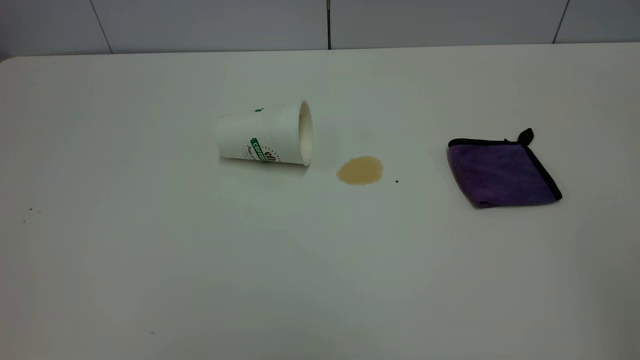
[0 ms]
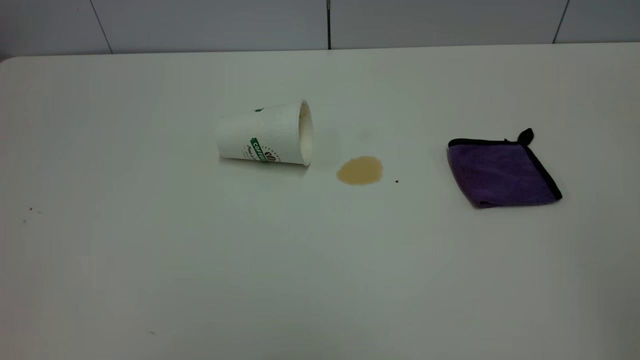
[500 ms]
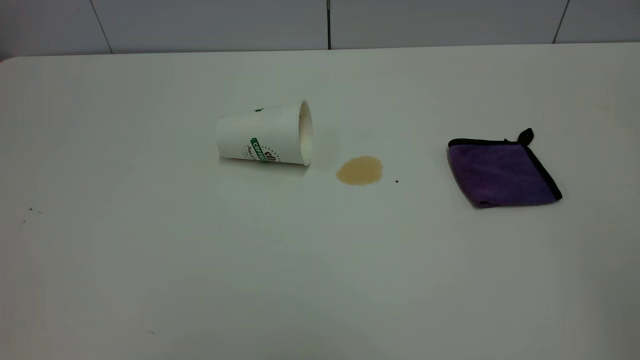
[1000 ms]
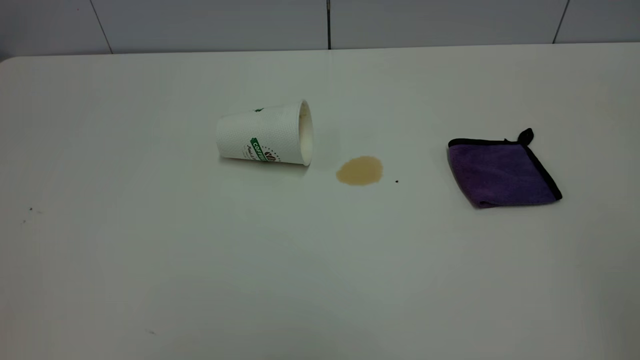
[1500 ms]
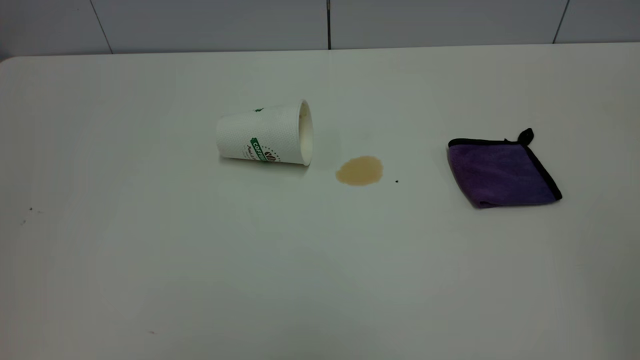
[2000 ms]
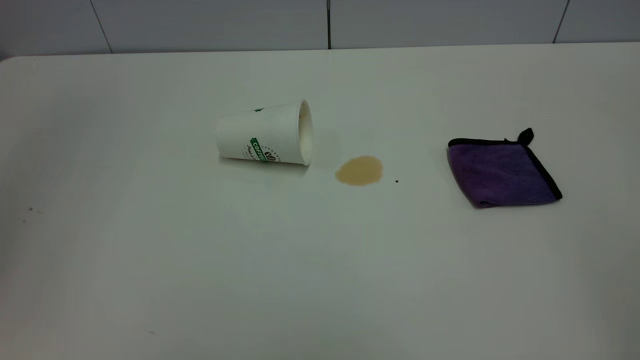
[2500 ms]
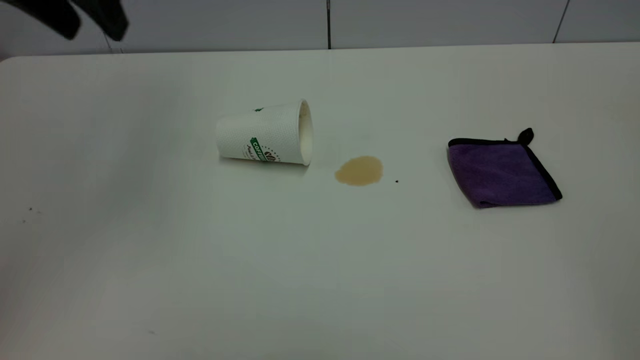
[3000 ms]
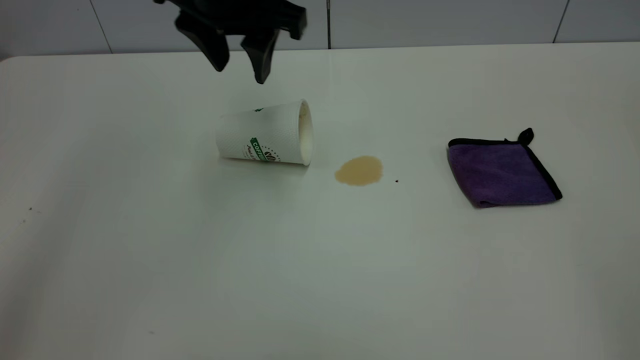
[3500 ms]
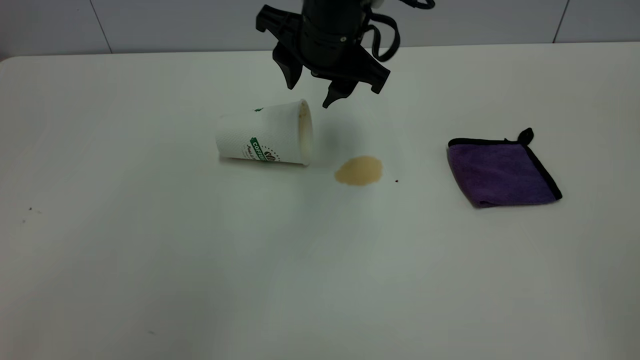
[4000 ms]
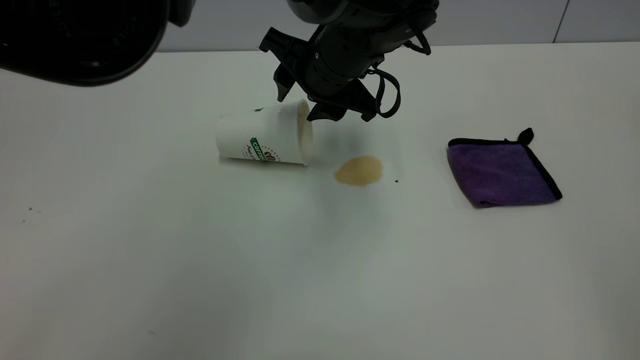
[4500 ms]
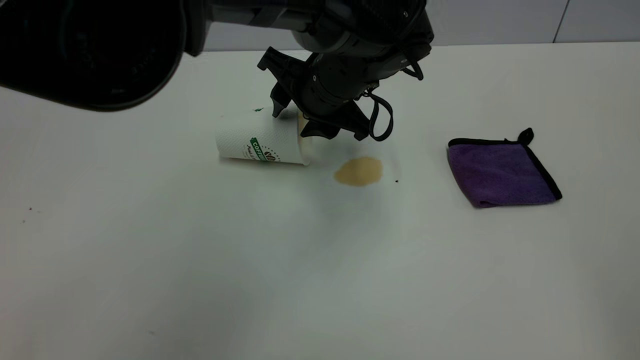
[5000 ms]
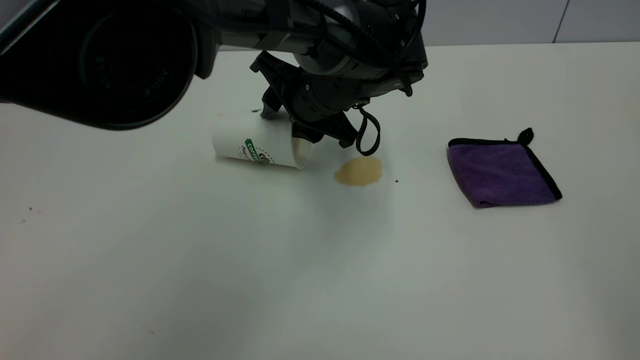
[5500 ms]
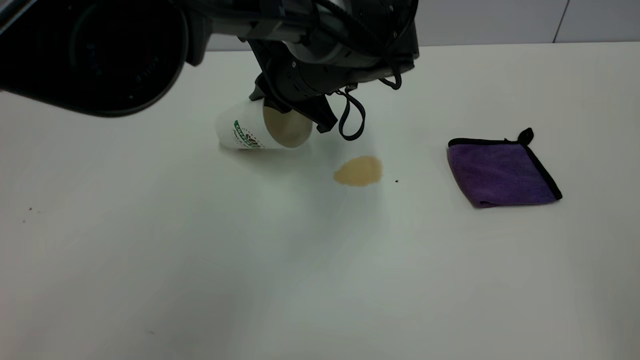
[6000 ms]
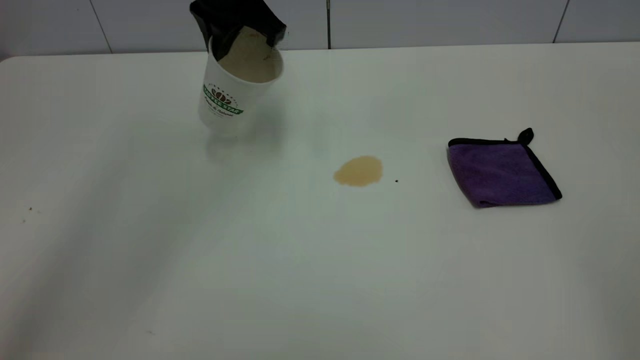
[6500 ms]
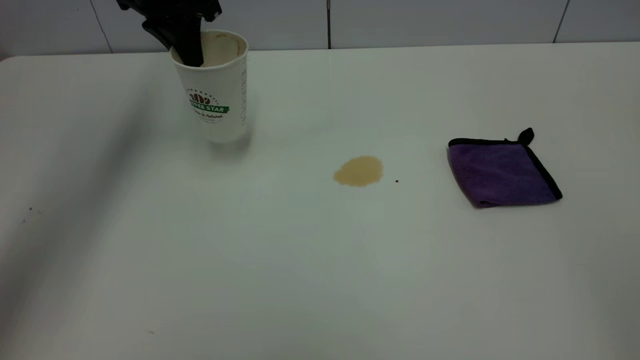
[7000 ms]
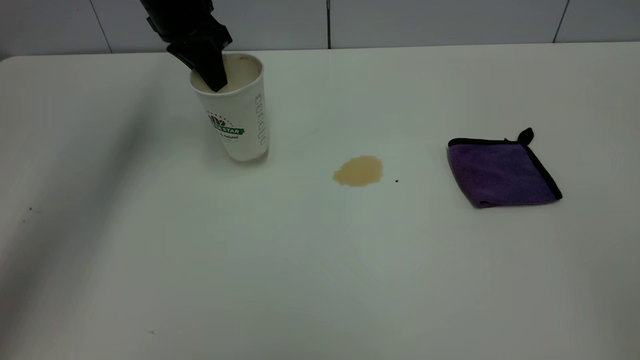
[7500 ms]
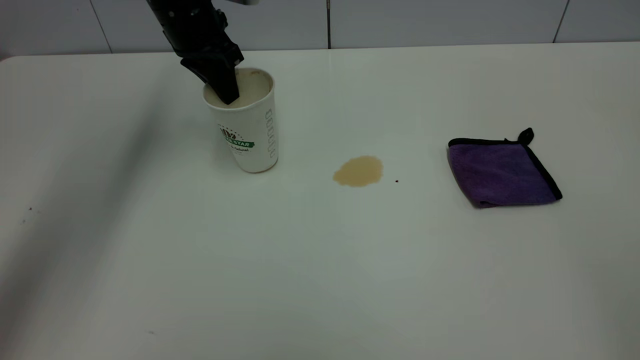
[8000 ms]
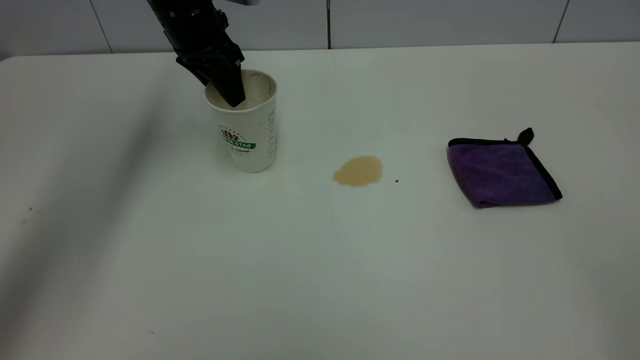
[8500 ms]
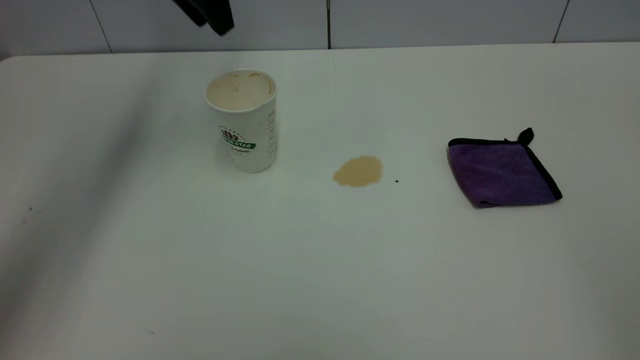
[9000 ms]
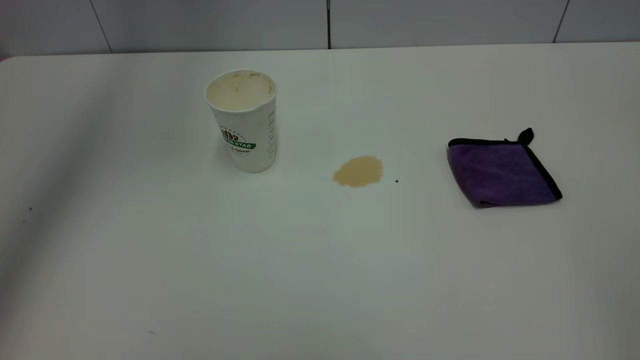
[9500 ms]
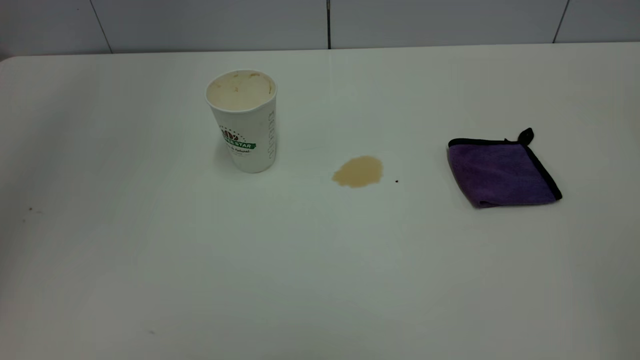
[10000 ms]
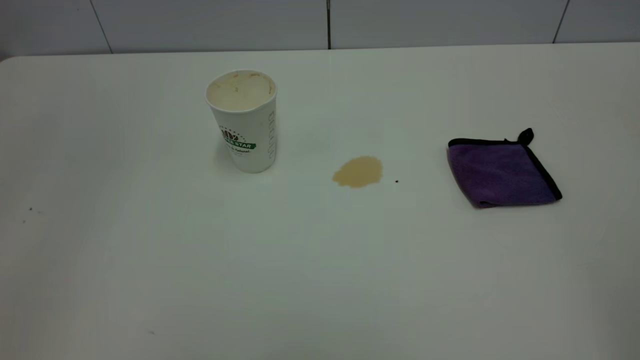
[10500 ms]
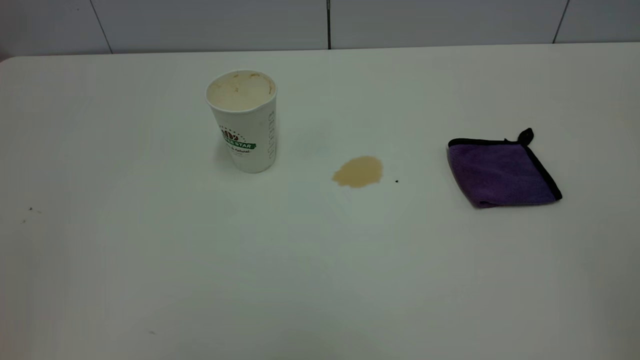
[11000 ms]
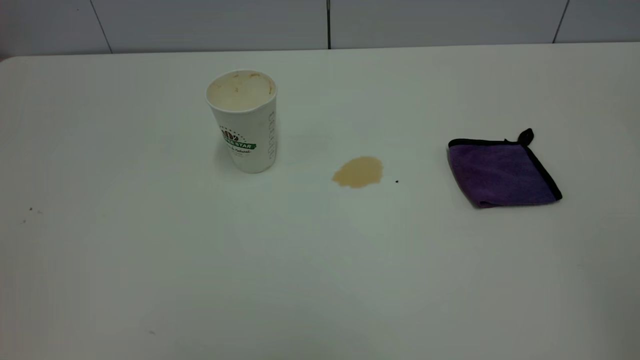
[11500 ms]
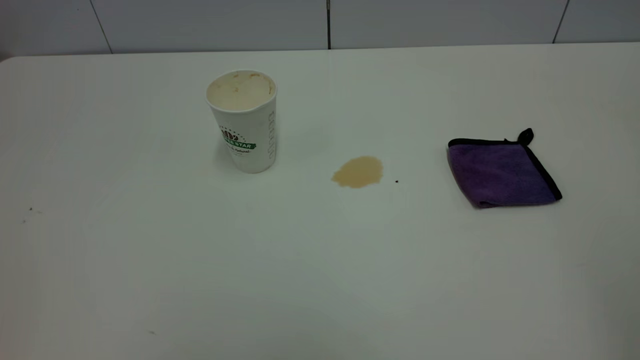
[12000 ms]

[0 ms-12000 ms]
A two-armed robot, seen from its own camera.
Task of the whole recording: the left gripper pick up the fallen cup and place it upright, the right gripper grasp the purple rag and wipe the tea stain on the table, the right gripper put the purple rag back in its original position.
Step, 0 ms to 8500 ms: Stand the paper cup upright.
2000 ms to 4000 ms: The left gripper shifts about 50 cm forward, to the right and downward.
4000 ms to 6000 ms: The left gripper travels downward by about 5 cm, and closes up.
6000 ms to 8000 ms: The left gripper is displaced to the left and forward by approximately 20 cm.
8000 ms to 10000 ms: The left gripper shifts some 40 cm upward and backward, and opens.

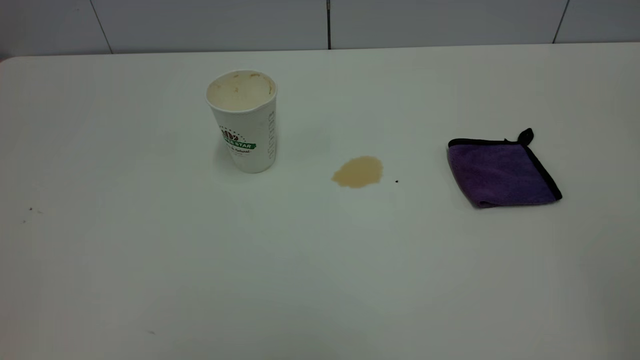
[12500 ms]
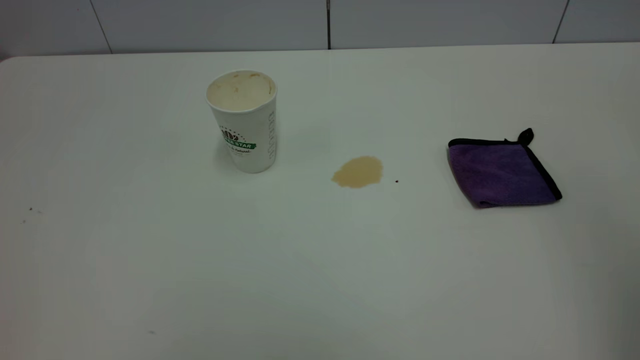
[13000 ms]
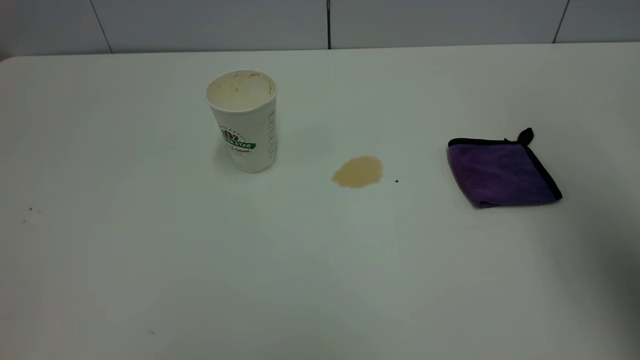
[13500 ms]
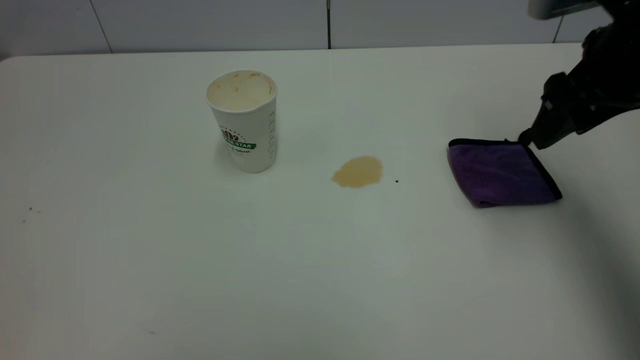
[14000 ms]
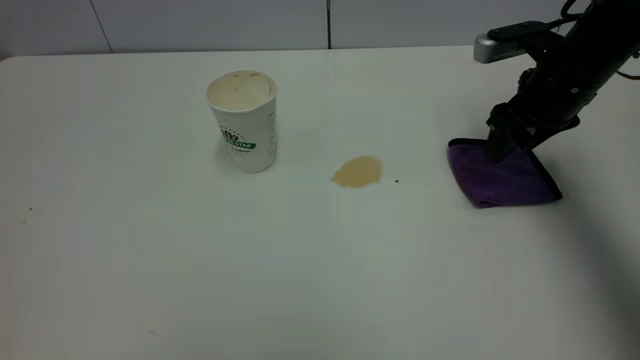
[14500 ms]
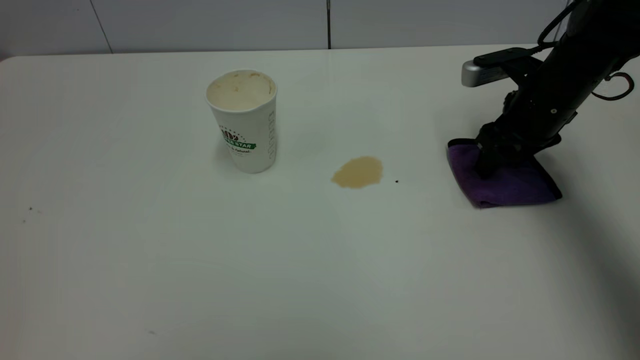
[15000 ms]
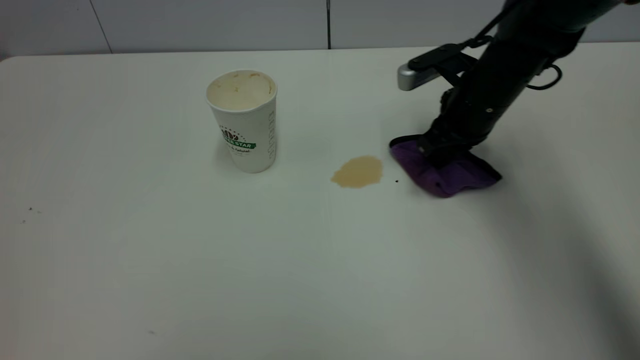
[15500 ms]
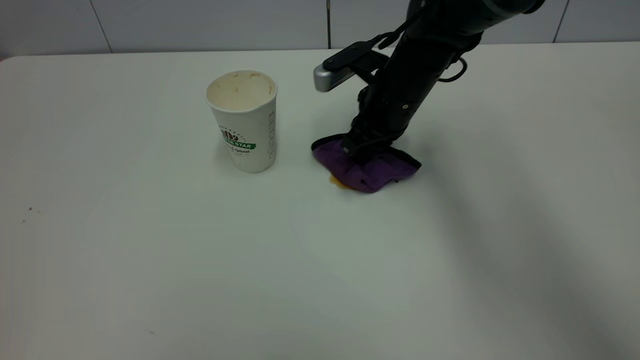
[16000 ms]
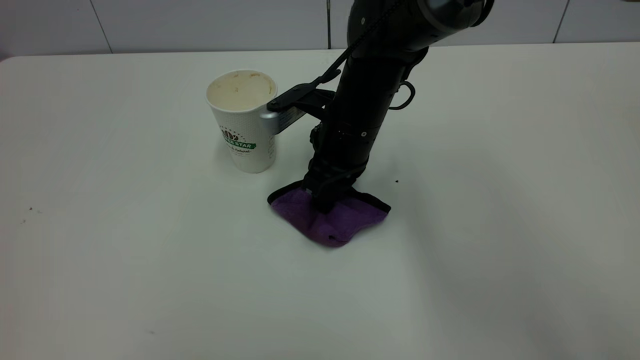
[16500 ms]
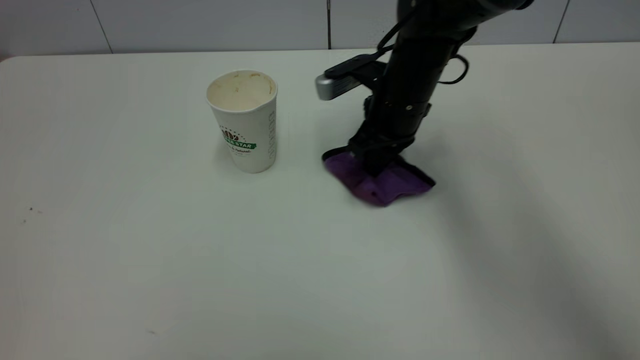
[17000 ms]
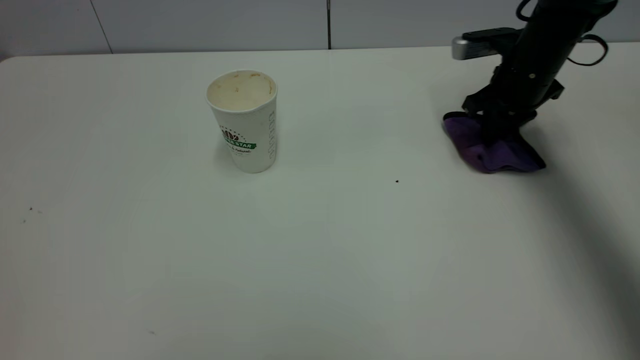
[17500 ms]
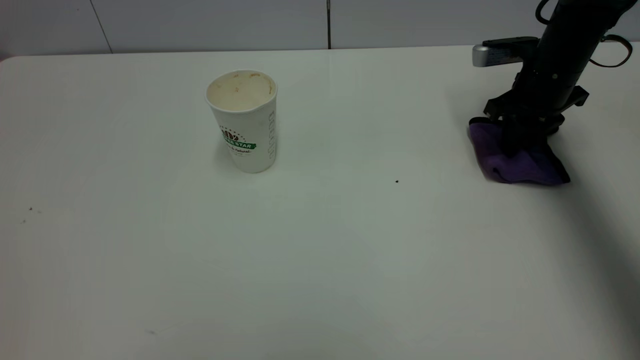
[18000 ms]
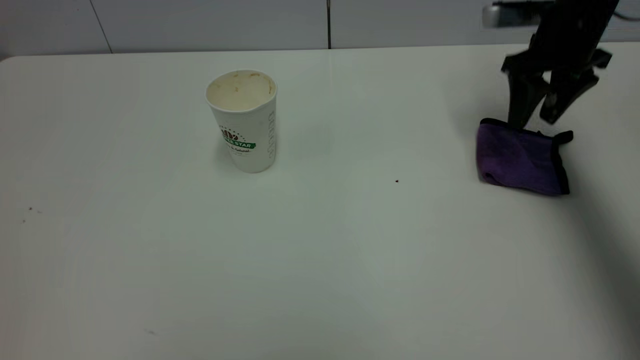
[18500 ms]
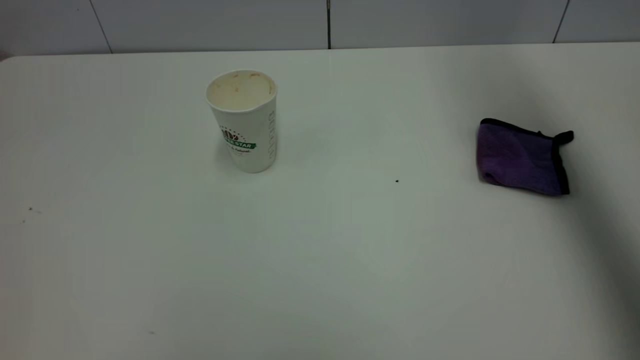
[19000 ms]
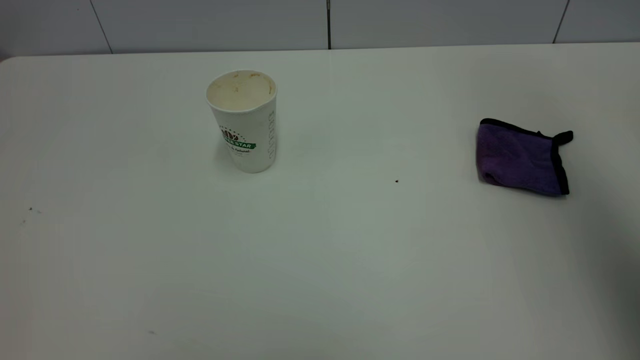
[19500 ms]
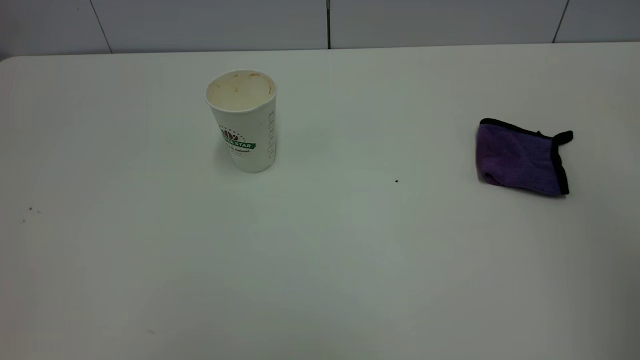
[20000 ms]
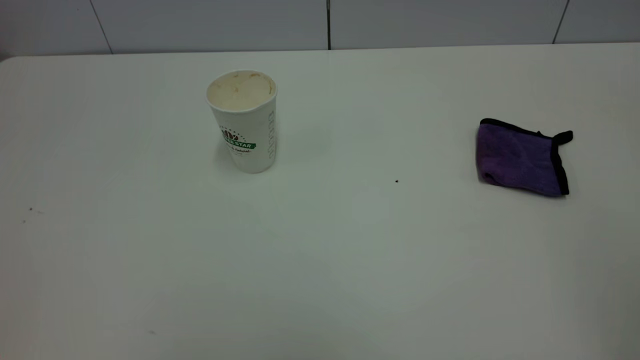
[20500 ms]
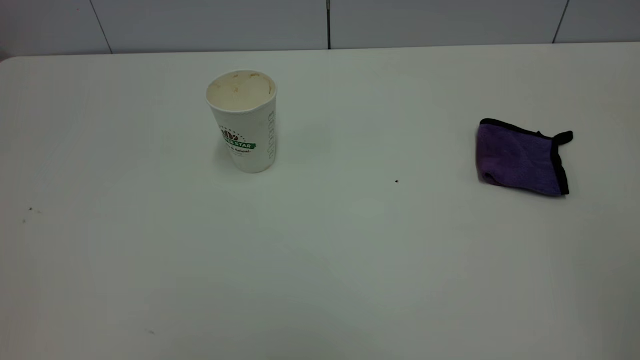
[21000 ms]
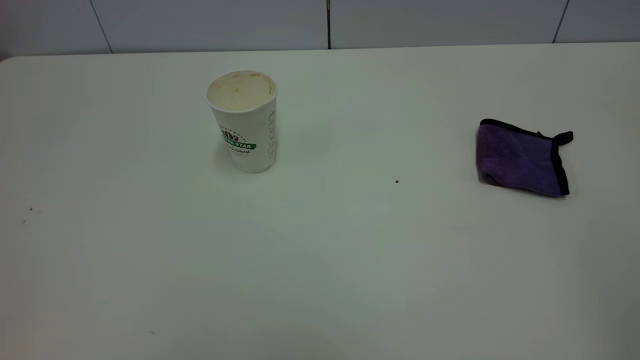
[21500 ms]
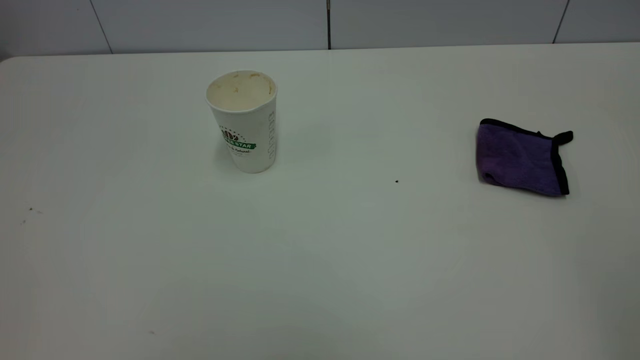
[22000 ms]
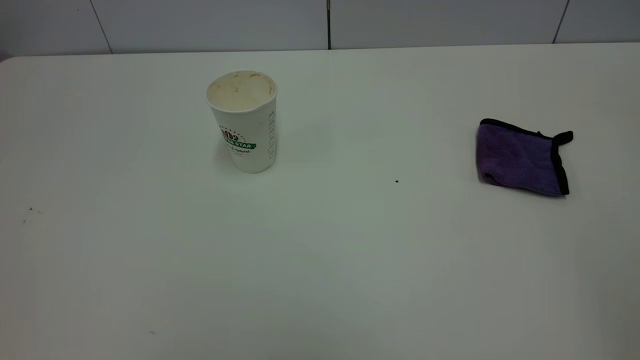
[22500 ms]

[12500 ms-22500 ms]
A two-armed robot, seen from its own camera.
Task of the whole recording: the left gripper pick up the fallen cup and place it upright, the right gripper grasp the purple rag and wipe the tea stain on the table, the right gripper put the purple rag back in its original position.
Step, 12500 ms to 18500 ms: Wipe the stains off the table with a rag.
12500 ms to 14500 ms: The right gripper is displaced forward and downward by about 50 cm.
14500 ms to 16500 ms: The right gripper goes about 20 cm to the left, and closes its fingers.
16500 ms to 18500 ms: The right gripper travels to the right and upward by roughly 25 cm, and opens its fingers.
18500 ms to 20500 ms: The right gripper heads backward, covering approximately 50 cm.
